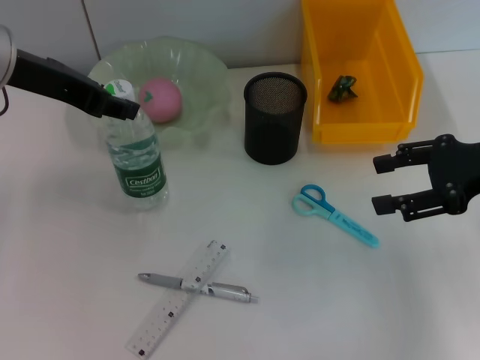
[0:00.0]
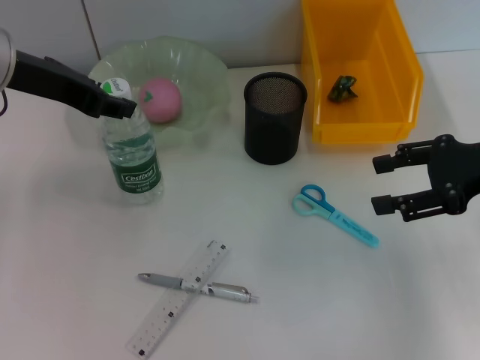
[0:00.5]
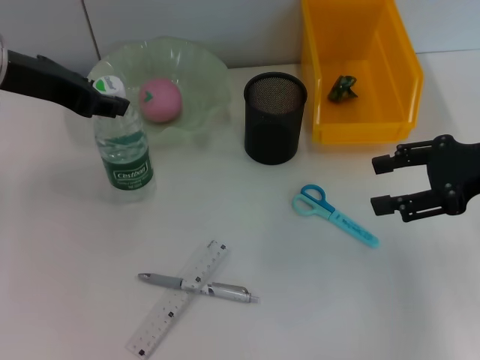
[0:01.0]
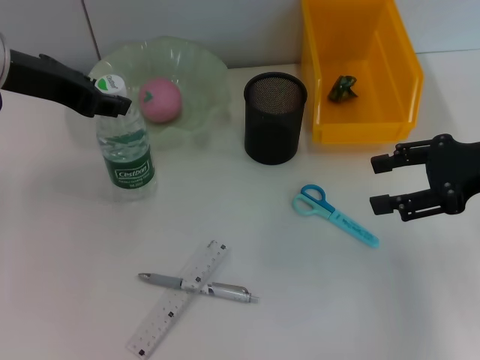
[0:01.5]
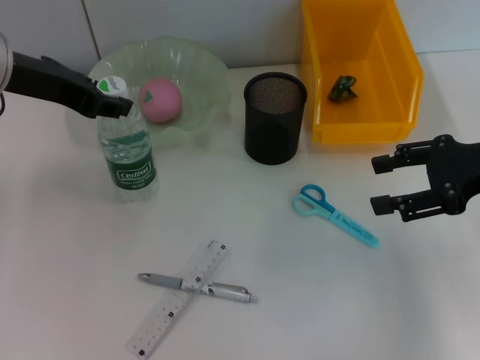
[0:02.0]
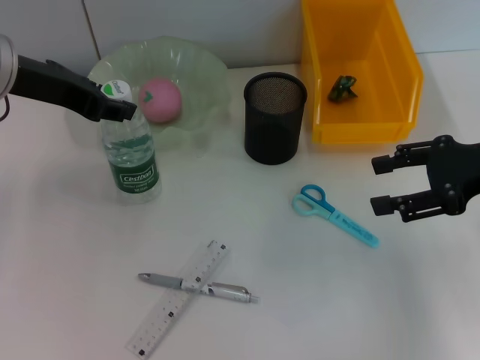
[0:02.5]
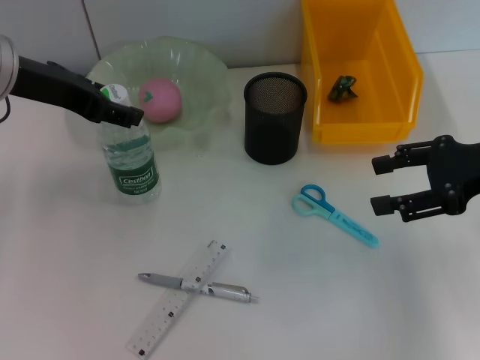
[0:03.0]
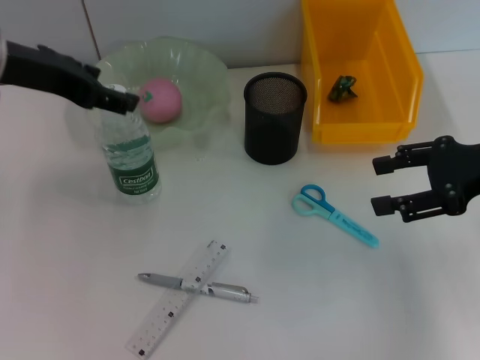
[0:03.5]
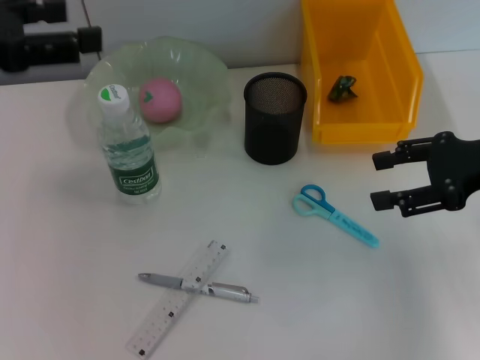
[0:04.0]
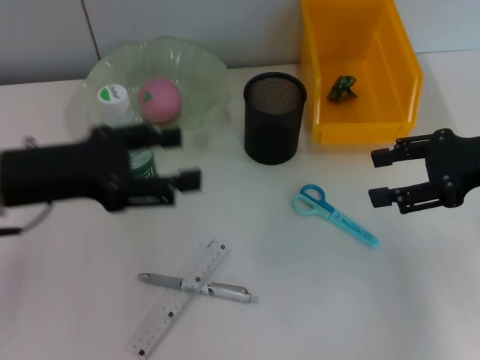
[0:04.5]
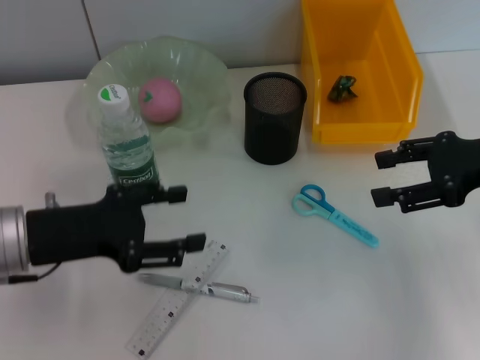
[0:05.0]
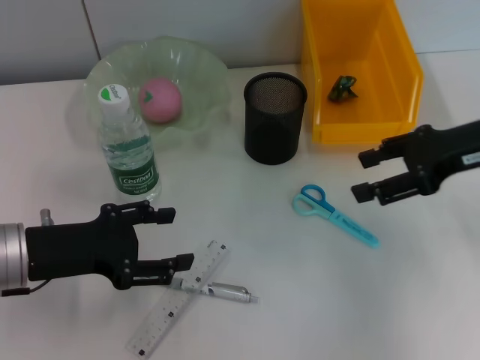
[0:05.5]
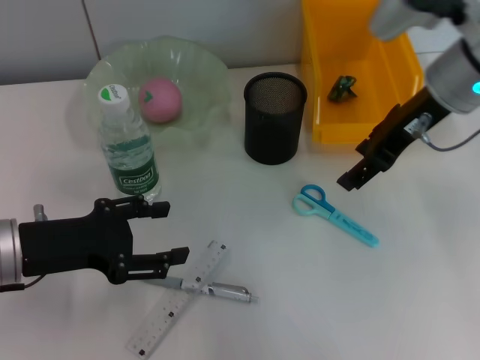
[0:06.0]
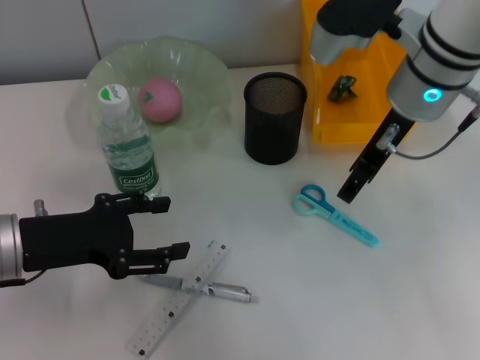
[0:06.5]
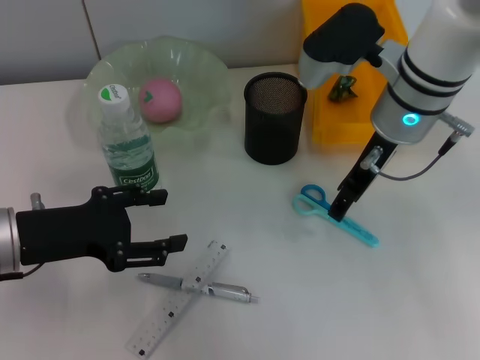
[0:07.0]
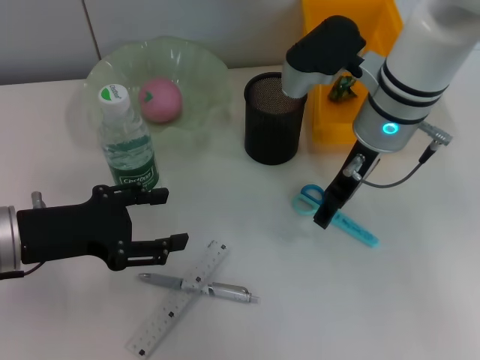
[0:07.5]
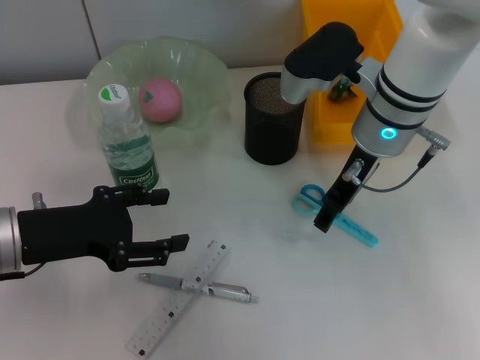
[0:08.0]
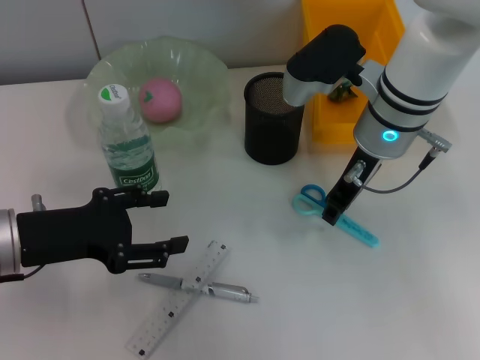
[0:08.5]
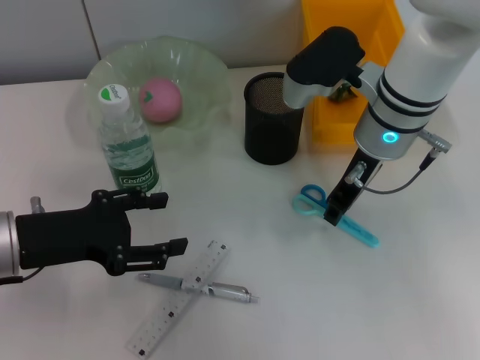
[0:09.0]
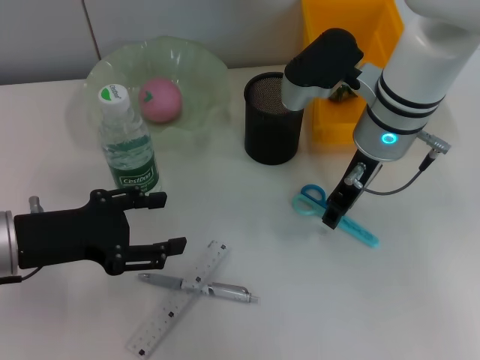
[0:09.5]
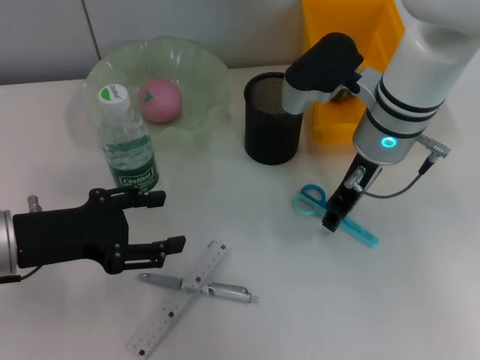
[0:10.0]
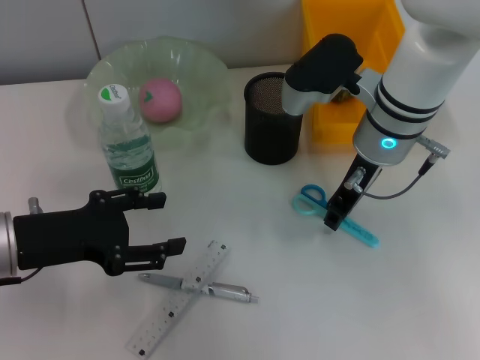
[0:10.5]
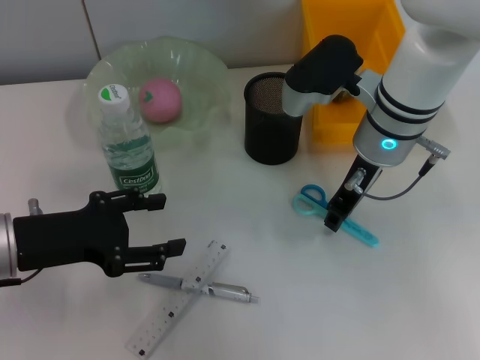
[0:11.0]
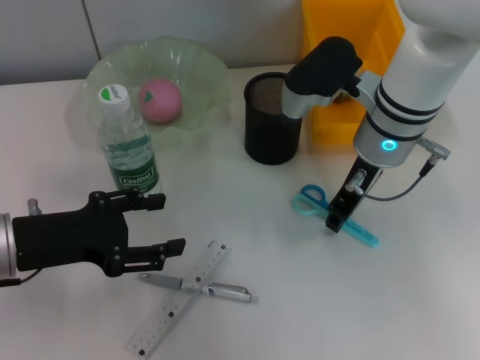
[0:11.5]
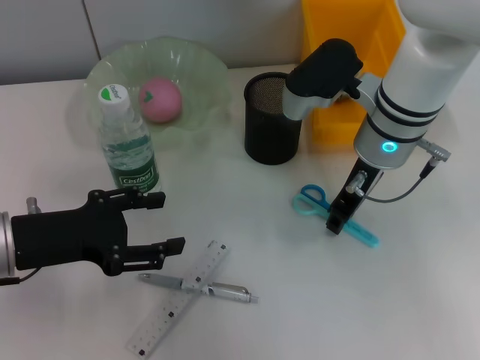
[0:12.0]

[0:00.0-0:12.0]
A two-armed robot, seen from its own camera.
Step, 0:00.0 to 0:02.5: Place the water bottle on the table with the left hand.
0:00.0 to 0:02.0: Neither gripper changes place.
0:02.0 to 0:04.0: The left gripper is displaced to the left and backward by some 10 cm, and opens its fingers.
0:04.0 to 0:06.0: The left gripper is displaced downward by approximately 15 cm. Meanwhile the right gripper heads to the left, forward and upward, covering roughly 15 cm.
0:06.0 to 0:08.0: The right gripper shifts some 10 cm to the left and downward.
0:08.0 to 0:10.0: The right gripper closes.
0:10.0 to 0:12.0: Both grippers stay put.

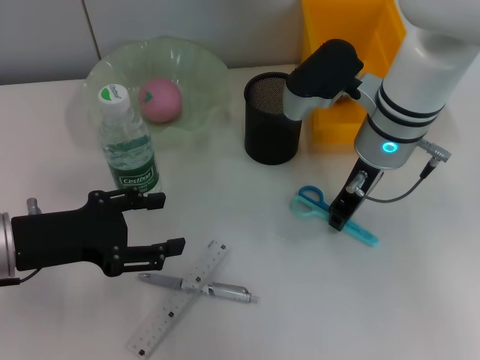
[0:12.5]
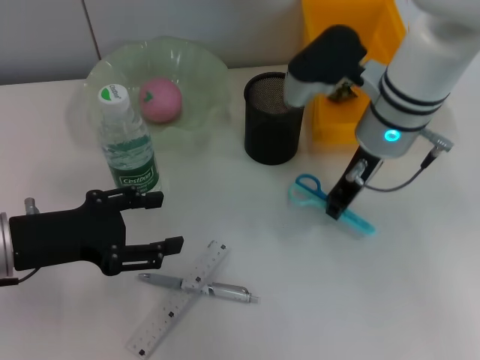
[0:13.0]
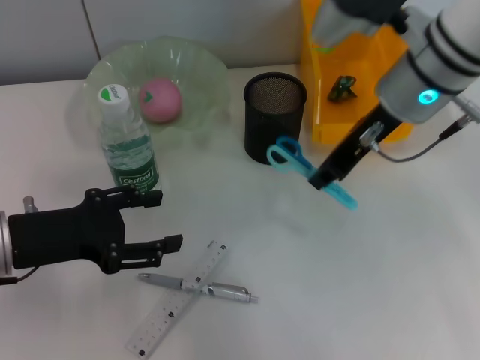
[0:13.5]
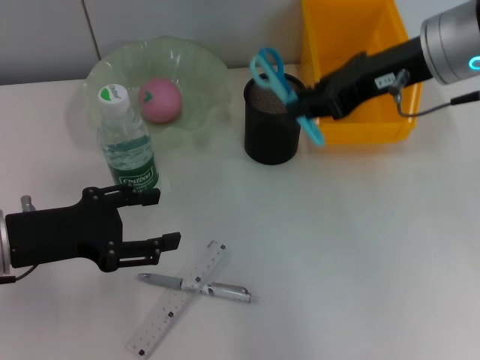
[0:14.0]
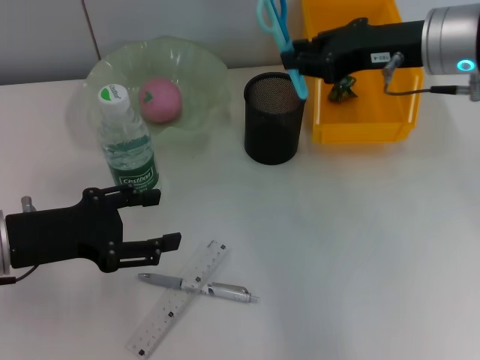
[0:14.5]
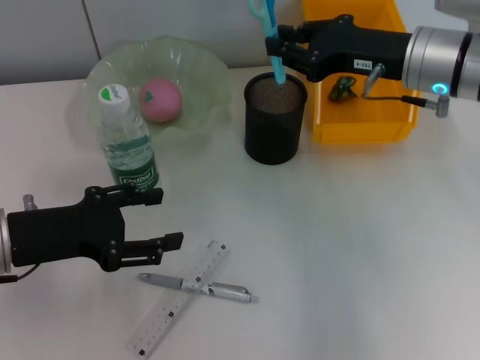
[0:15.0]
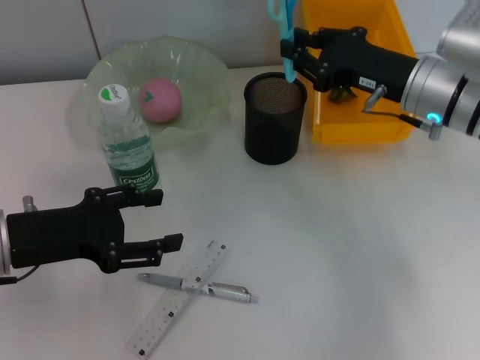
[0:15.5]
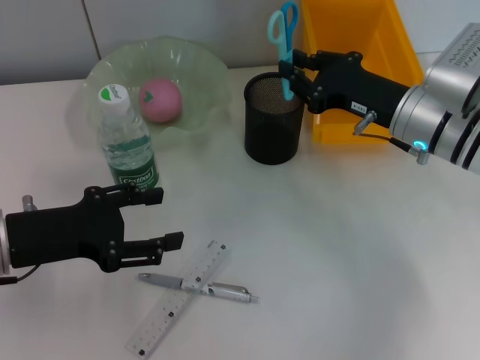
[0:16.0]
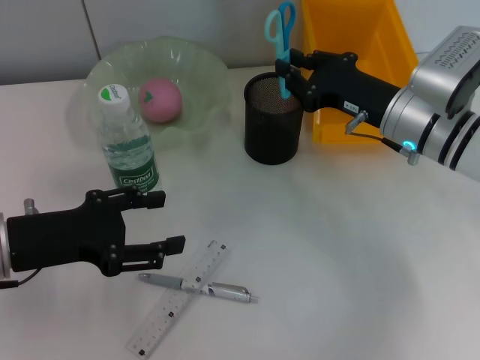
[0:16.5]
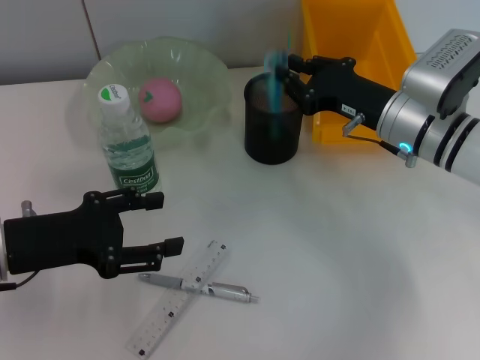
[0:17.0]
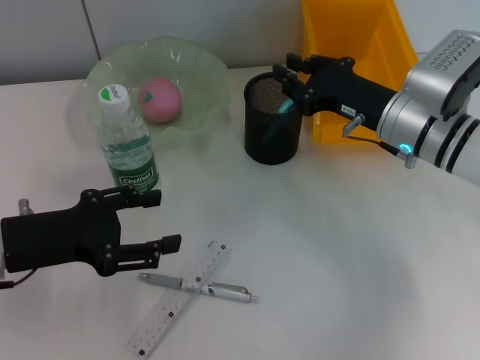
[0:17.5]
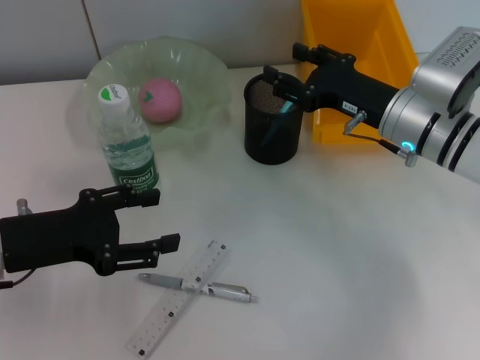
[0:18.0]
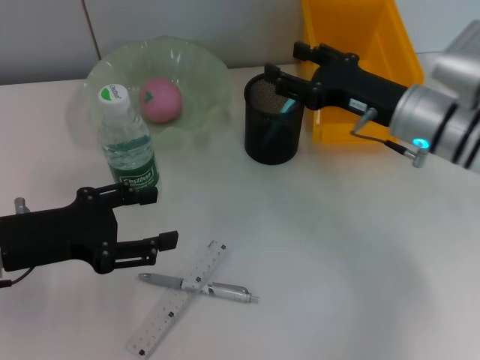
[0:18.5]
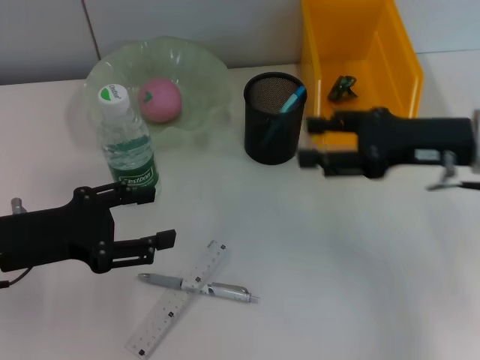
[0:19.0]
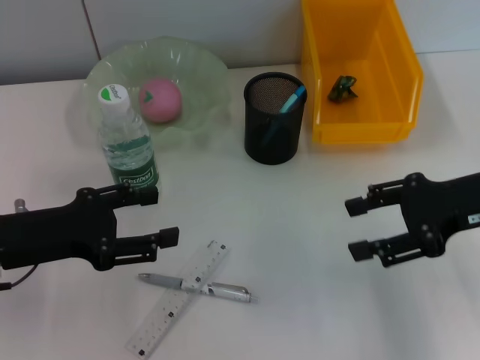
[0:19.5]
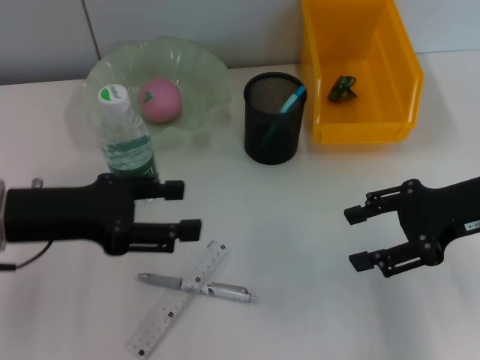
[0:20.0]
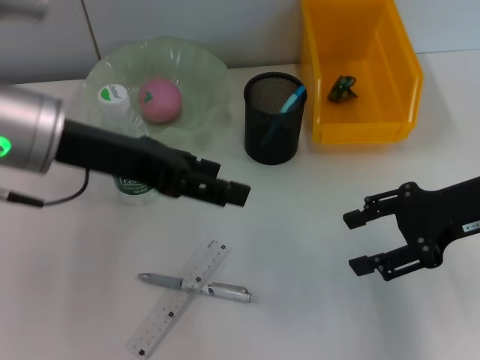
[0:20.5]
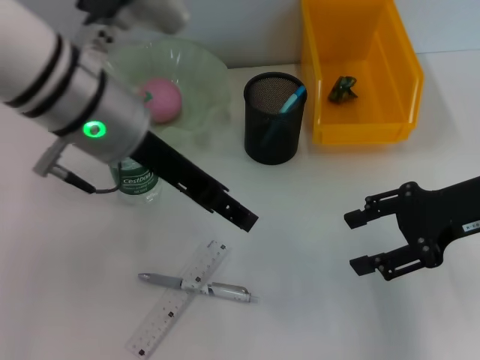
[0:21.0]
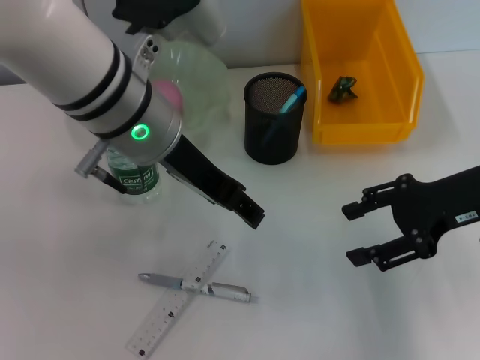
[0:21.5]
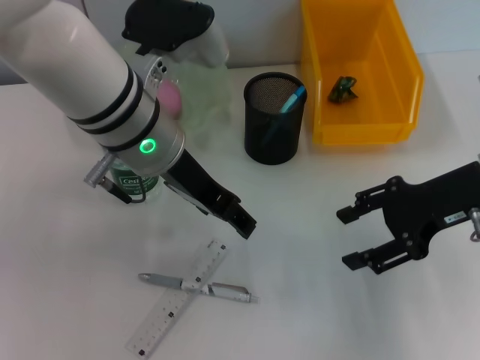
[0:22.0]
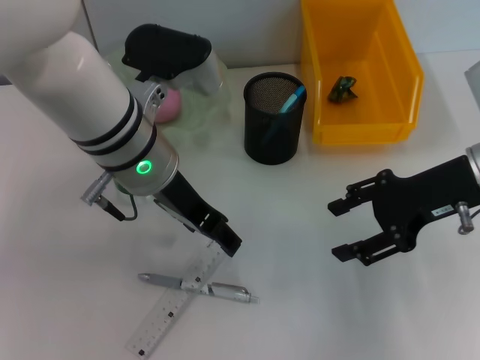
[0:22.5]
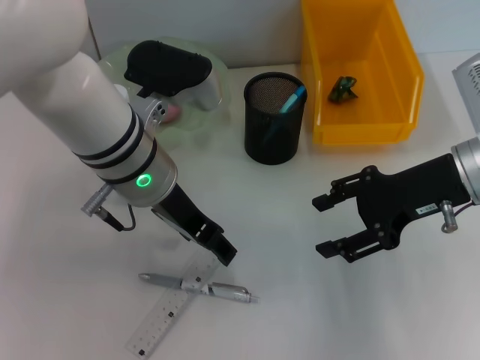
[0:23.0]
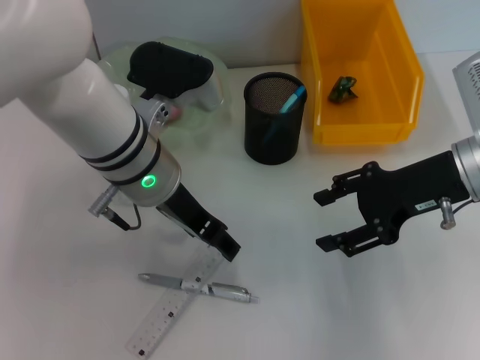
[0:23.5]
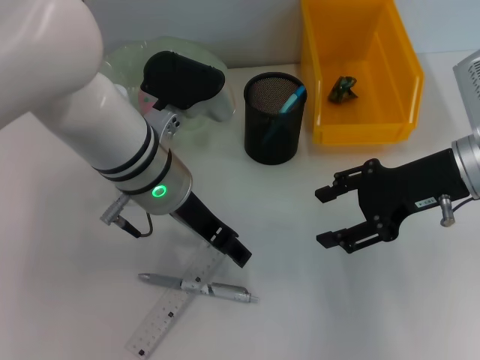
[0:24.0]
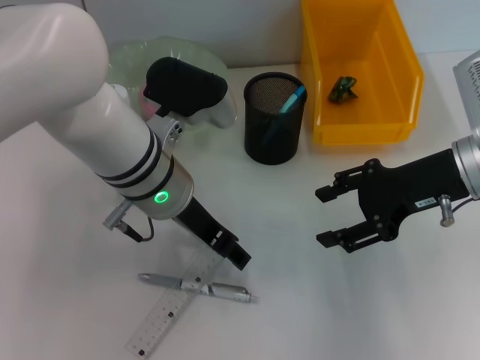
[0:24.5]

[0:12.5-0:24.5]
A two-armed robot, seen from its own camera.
Step, 0:12.5 to 0:17.5: Place the blue scissors into the pen holder with the right hand.
0:12.5 to 0:14.5: The right gripper goes about 10 cm to the right and upward.
0:14.5 to 0:16.5: The right gripper goes about 10 cm downward.
0:16.5 to 0:18.5: The right gripper opens its fingers.
0:18.5 to 0:20.5: The left gripper is displaced upward and to the right by roughly 15 cm; the right gripper shifts approximately 10 cm backward and to the right.
0:20.5 to 0:22.5: The left gripper heads to the right and downward, covering some 10 cm.
0:22.5 to 0:24.5: The grippers move only a little.

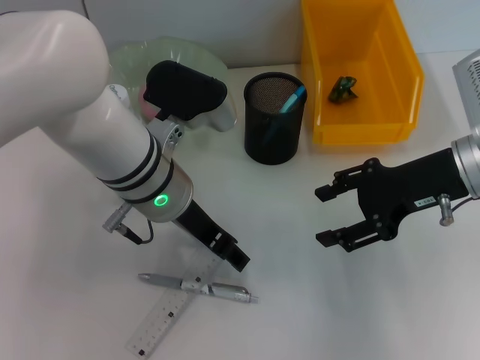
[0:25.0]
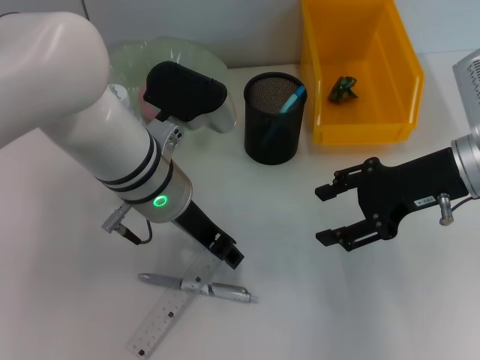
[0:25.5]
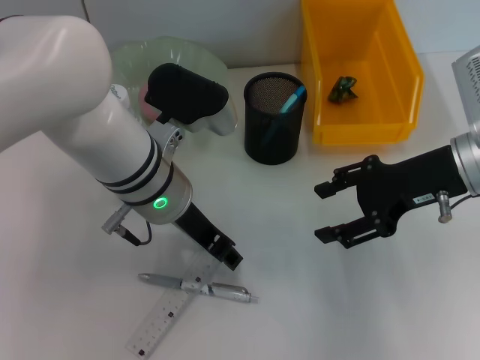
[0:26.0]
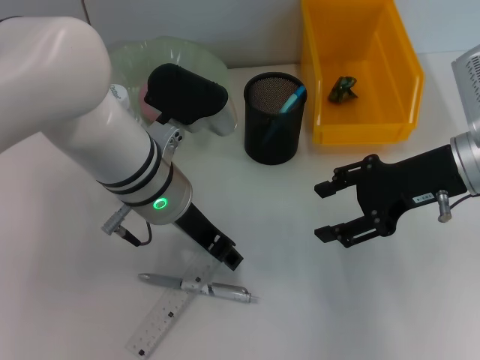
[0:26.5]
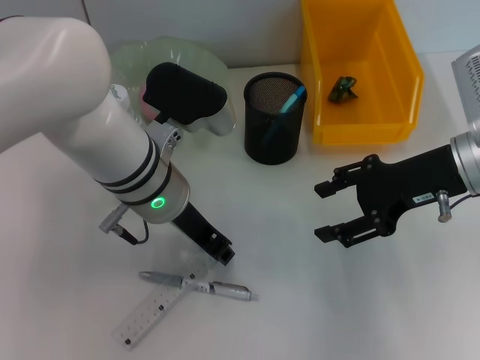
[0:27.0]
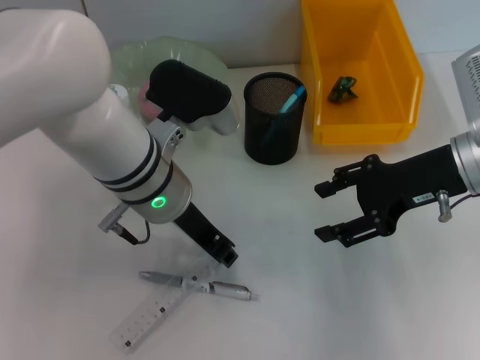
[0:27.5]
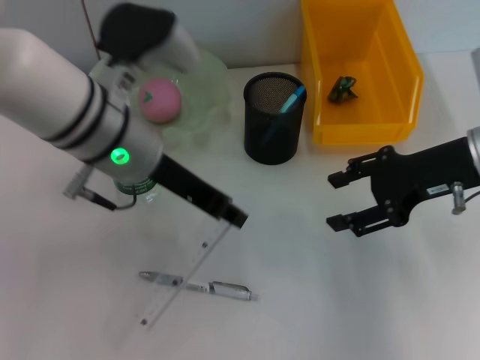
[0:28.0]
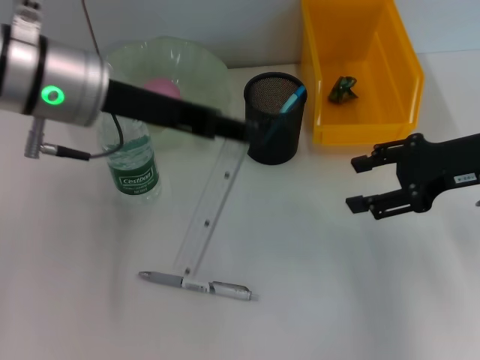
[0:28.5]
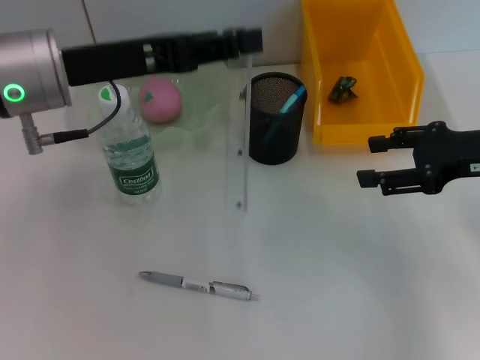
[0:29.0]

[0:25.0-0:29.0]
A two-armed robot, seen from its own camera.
Step, 0:25.0 to 0:27.0: Grab the ruler with the left hand.
0:25.0 to 0:27.0: Neither gripper changes place.
0:27.0 to 0:29.0: The left gripper is displaced to the left and upward by some 15 cm. Meanwhile the right gripper moves to the right, some 5 cm.
